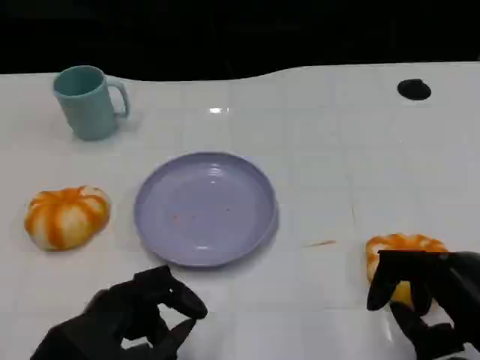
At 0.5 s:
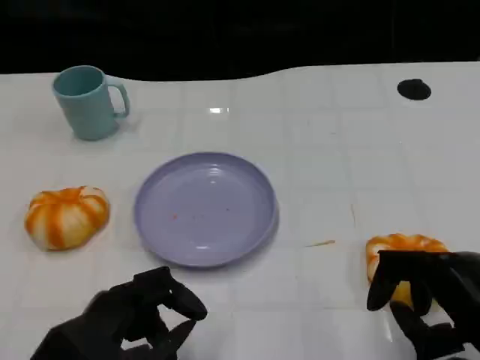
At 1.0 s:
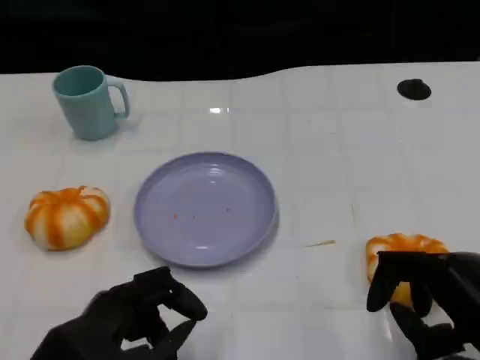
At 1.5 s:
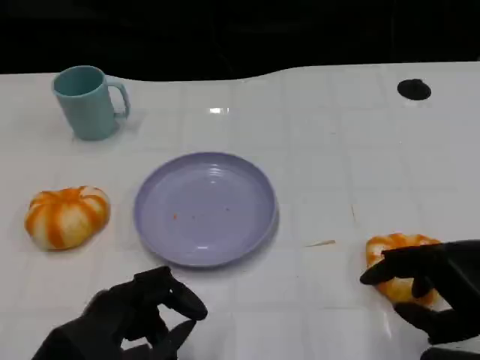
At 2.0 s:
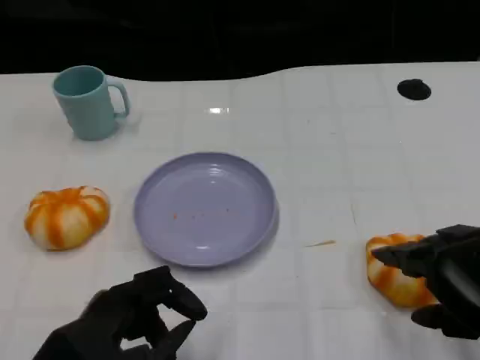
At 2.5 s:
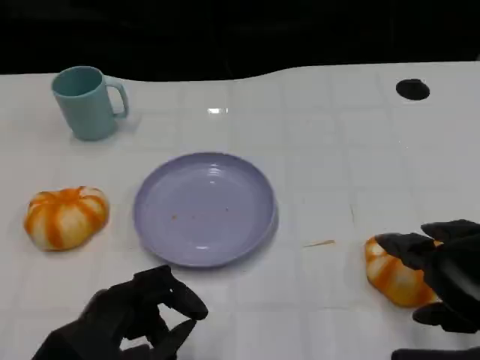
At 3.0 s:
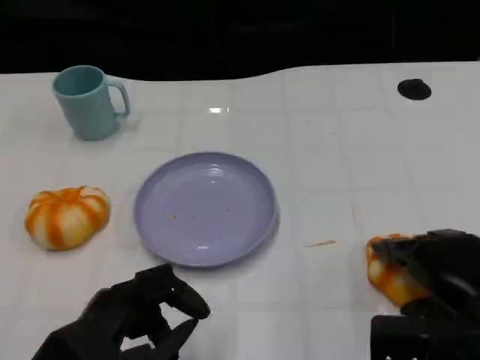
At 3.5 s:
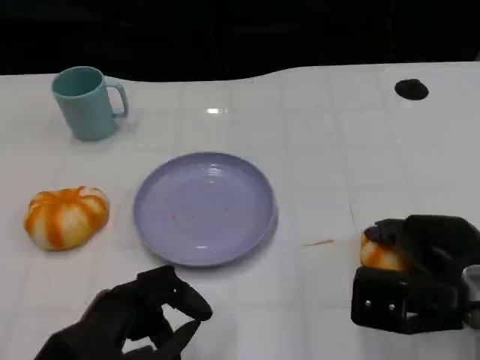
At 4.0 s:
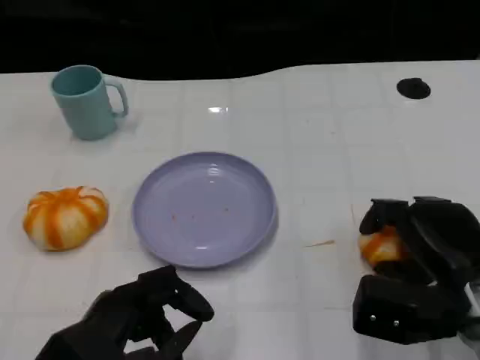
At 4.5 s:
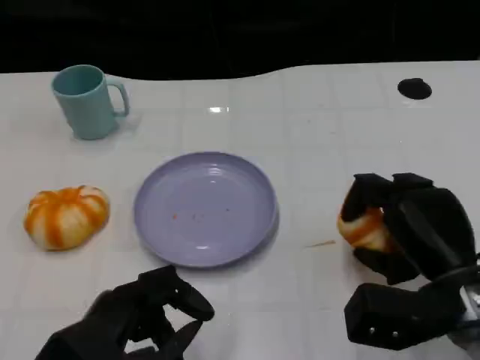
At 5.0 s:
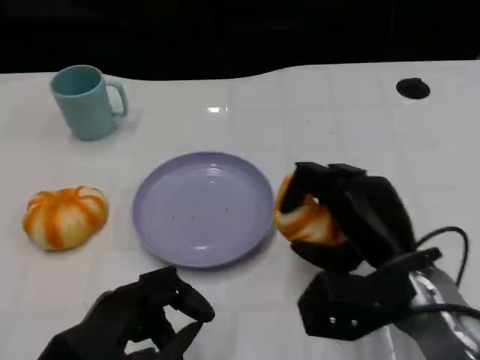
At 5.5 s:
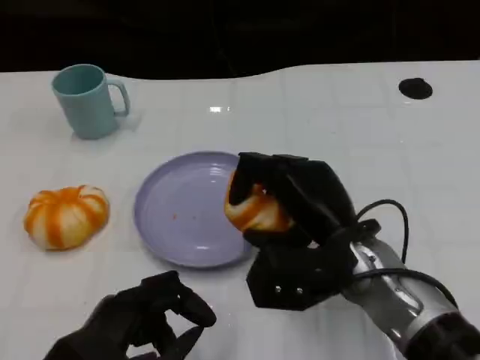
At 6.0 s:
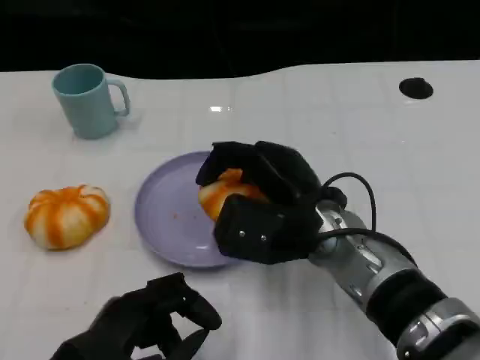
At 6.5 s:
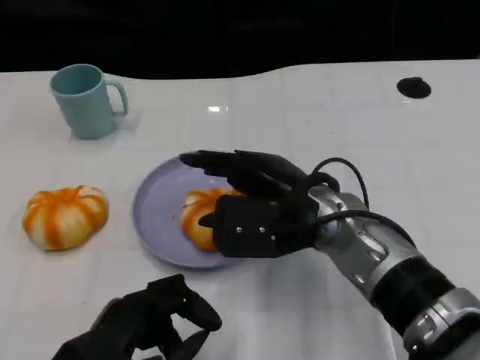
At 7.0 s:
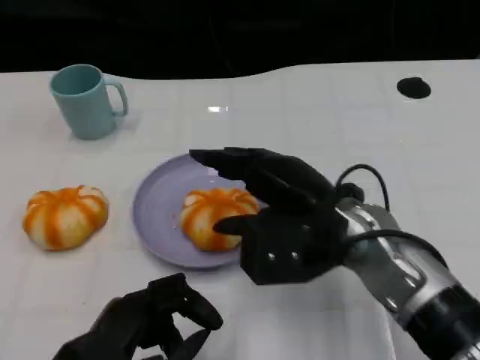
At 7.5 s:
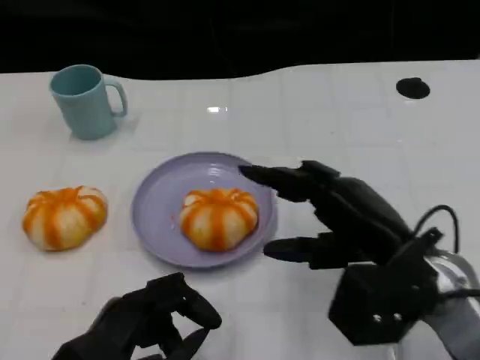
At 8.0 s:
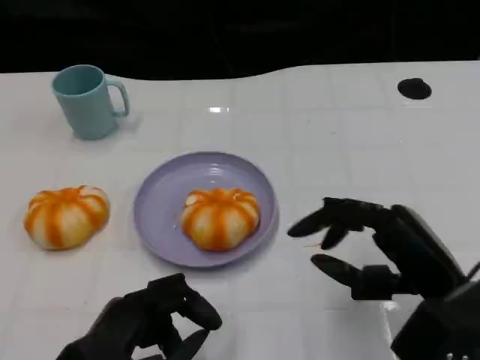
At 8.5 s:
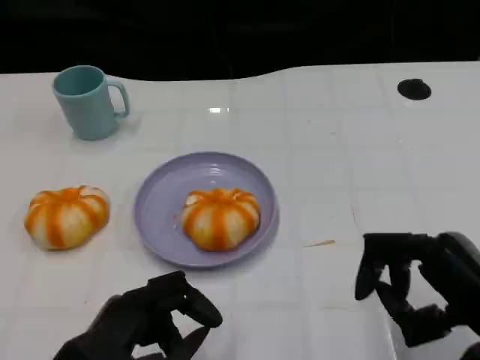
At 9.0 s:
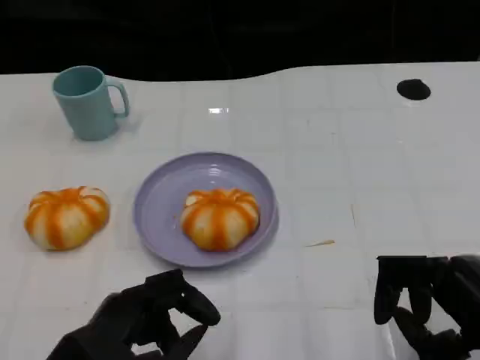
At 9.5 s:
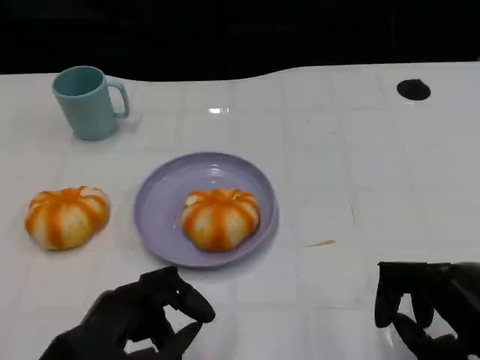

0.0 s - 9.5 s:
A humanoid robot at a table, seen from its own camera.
Task of the whole recording: Grasp the bread from the table and place it into the plate.
2.0 s - 4.0 s: The right hand shifts roughly 10 cm forward and downward.
4.0 s - 5.5 s: The right hand travels to the left by roughly 10 cm.
5.5 s - 7.5 s: The right hand shifts roughly 10 cm to the right.
7.5 s - 9.5 s: The right hand goes about 10 cm backward and to the right.

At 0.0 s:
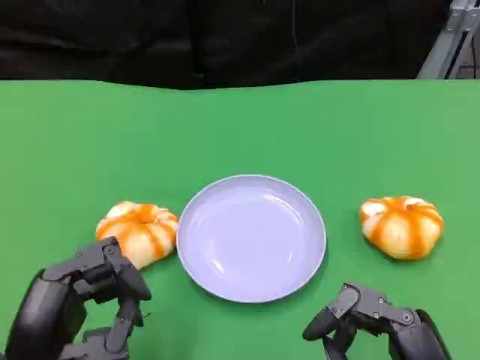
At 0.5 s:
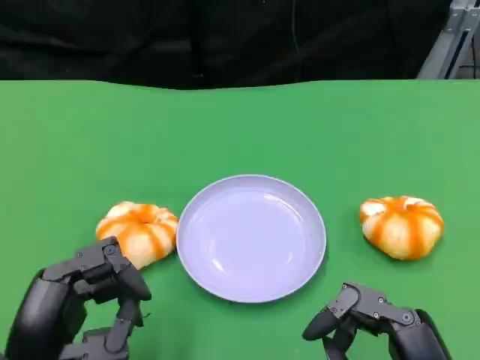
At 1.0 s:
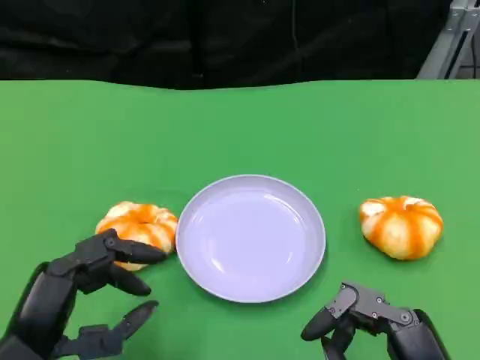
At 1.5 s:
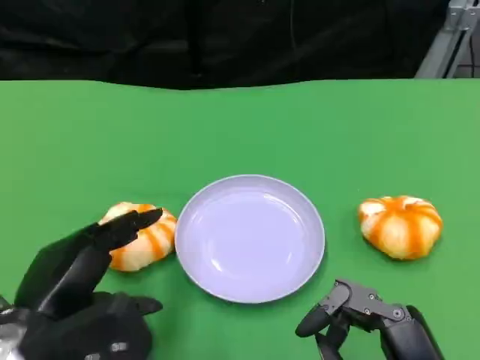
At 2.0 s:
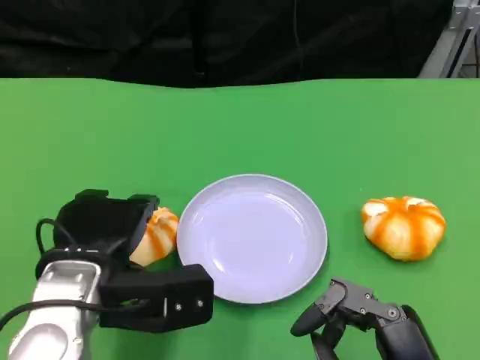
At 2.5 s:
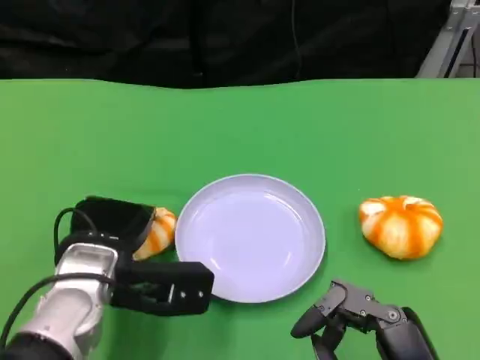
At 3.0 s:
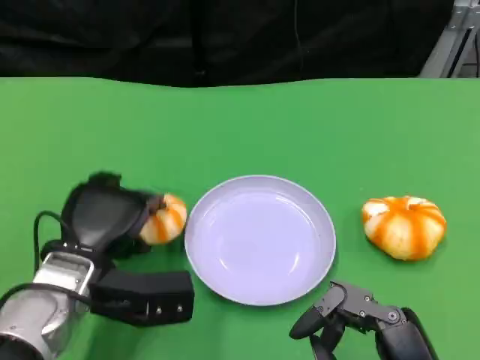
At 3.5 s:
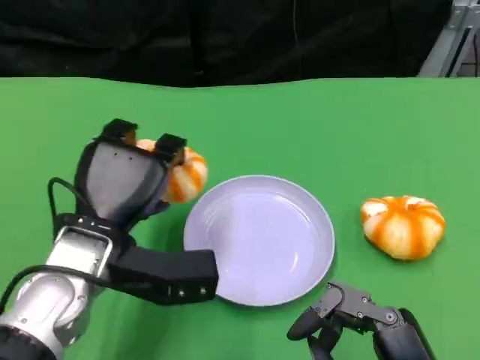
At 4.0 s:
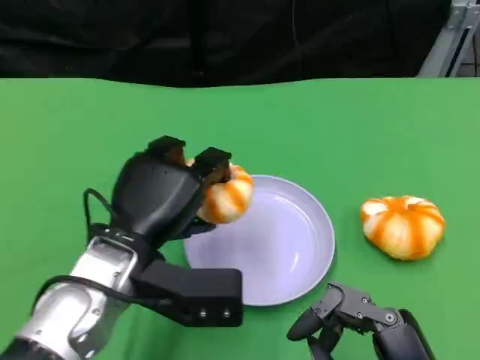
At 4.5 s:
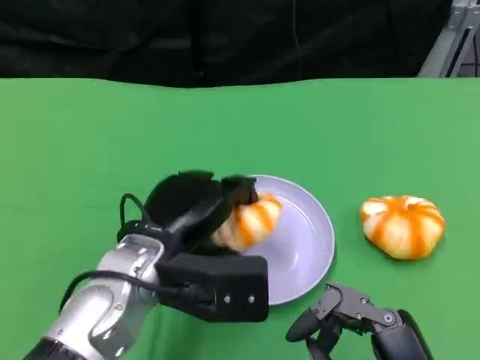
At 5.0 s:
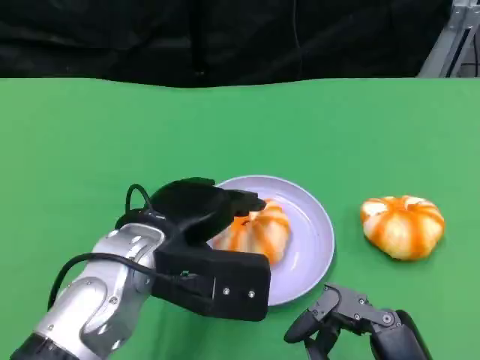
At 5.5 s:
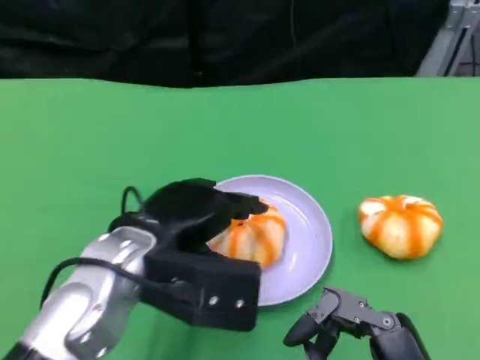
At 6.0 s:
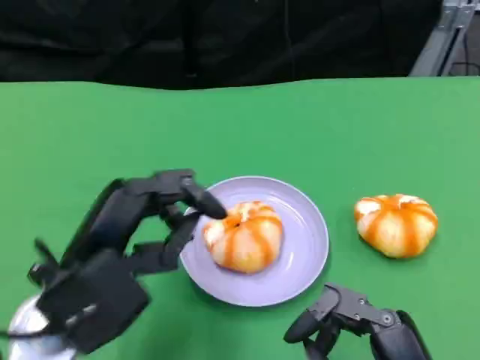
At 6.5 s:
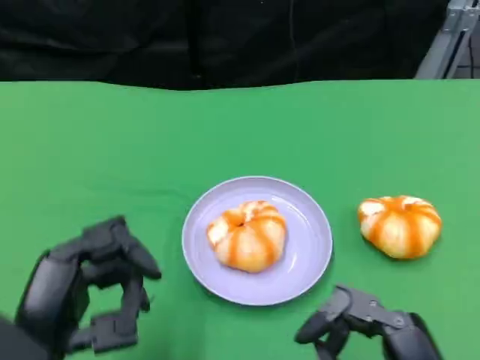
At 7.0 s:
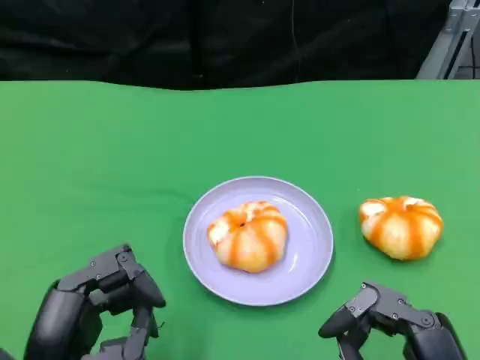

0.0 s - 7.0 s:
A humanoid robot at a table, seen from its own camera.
Task of the whole recording: Grasp the bread from the table and place it into the plate.
0.0 s - 2.0 s: The left hand is displaced forward and to the right by some 10 cm.
3.5 s - 5.0 s: The left hand ends up about 5 cm from where it was.
5.0 s - 7.0 s: The left hand goes approximately 15 cm backward and to the left.

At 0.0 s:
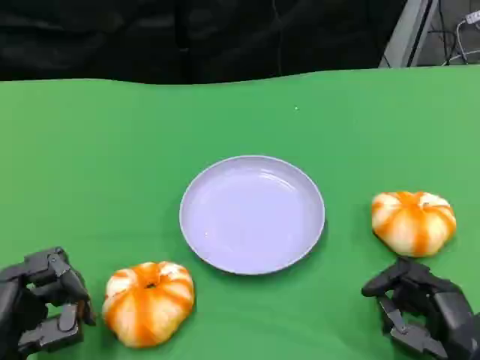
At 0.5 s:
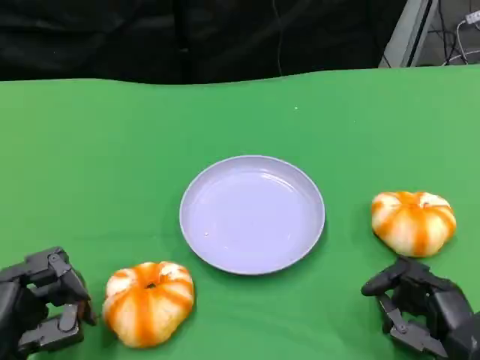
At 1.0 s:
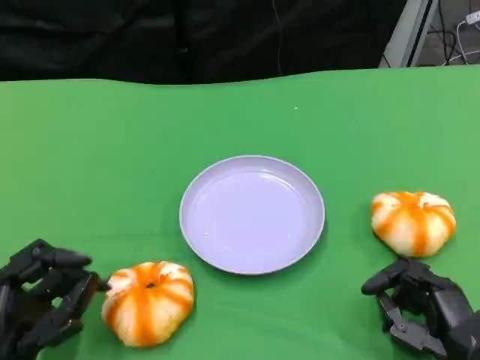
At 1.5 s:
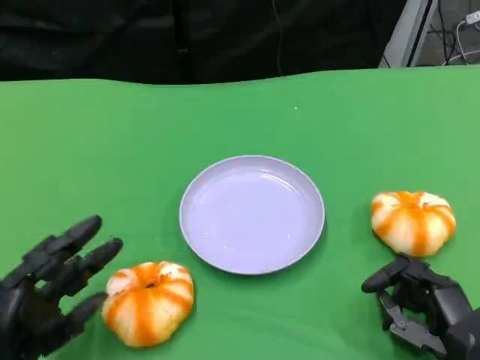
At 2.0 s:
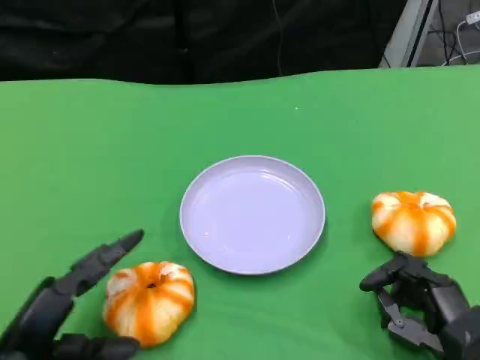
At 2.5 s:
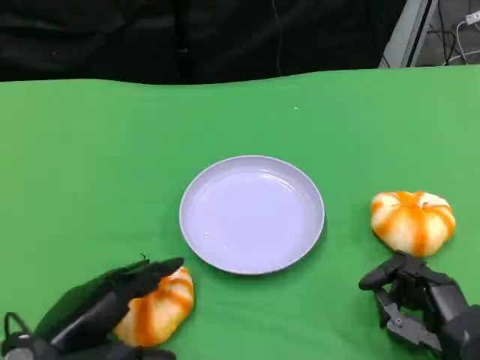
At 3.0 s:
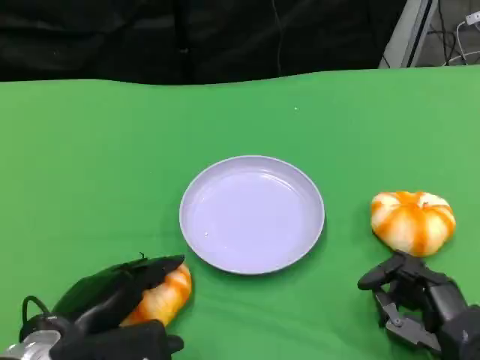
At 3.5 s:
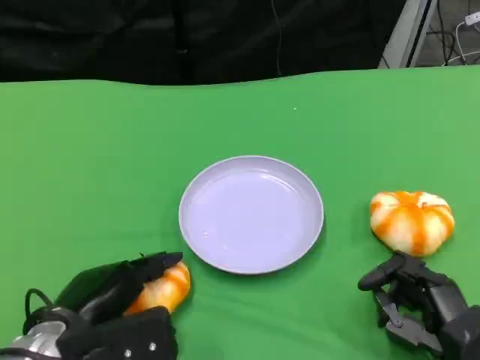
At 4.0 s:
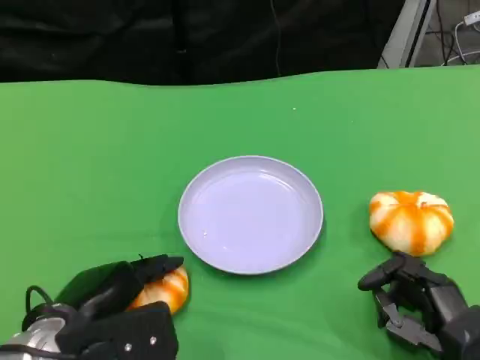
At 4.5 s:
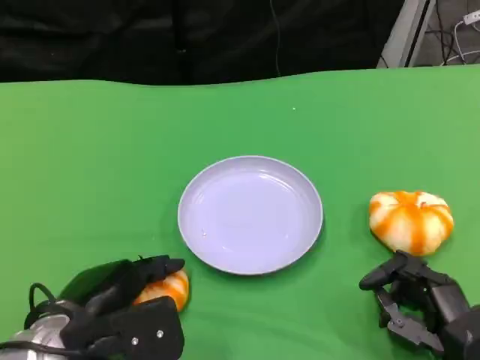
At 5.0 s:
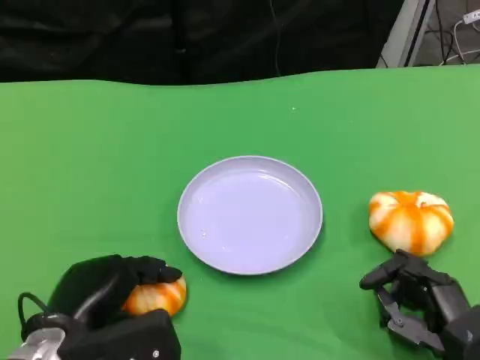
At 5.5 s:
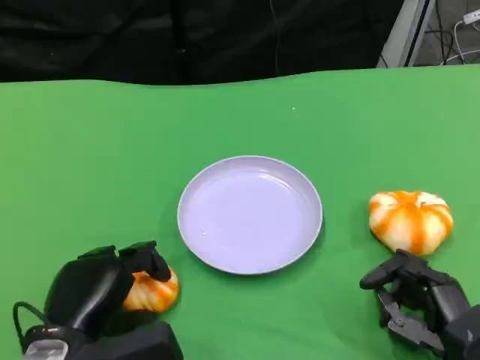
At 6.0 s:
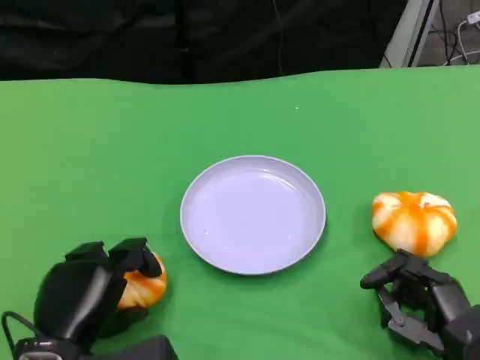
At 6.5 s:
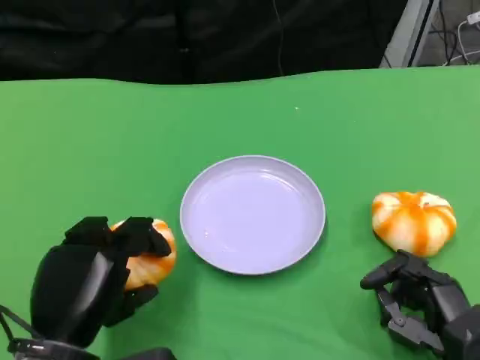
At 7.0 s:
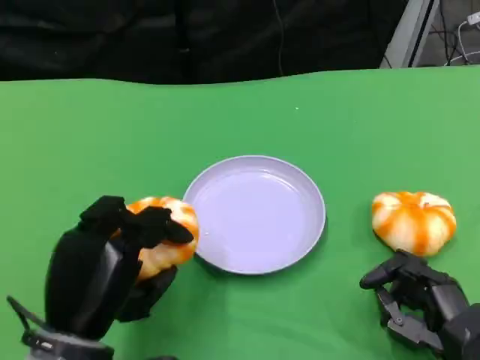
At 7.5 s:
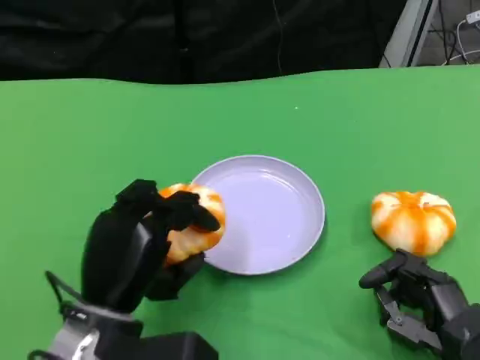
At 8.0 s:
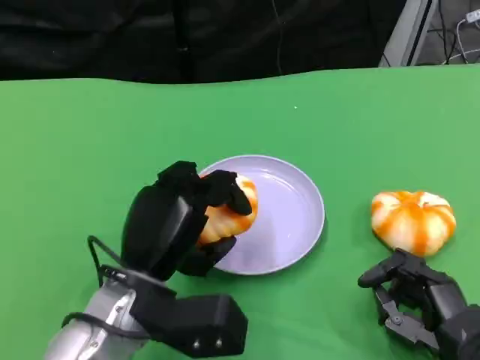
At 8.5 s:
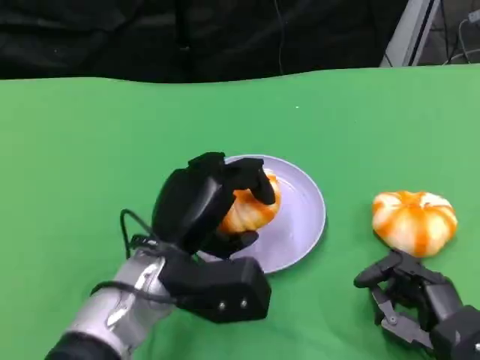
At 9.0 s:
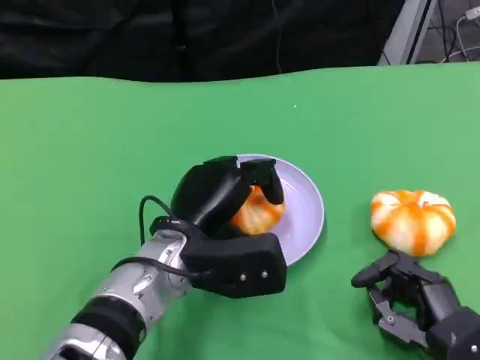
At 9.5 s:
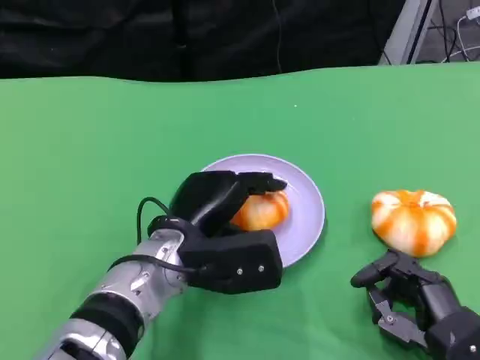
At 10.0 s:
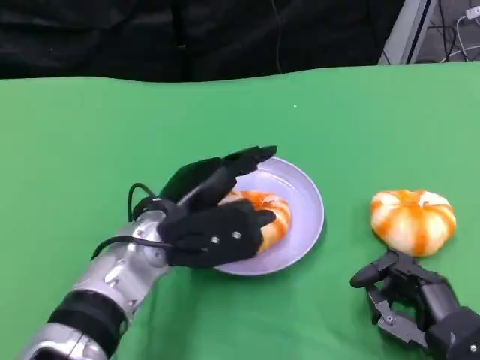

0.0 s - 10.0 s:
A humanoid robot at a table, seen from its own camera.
Task of the whole recording: Grasp the bread from the table and place it into the plate.
2.0 s - 4.0 s: The left hand travels to the right by approximately 5 cm.
6.0 s - 8.0 s: The left hand moves to the right and forward, approximately 10 cm.
8.0 s - 10.0 s: The left hand moves forward, about 5 cm.
